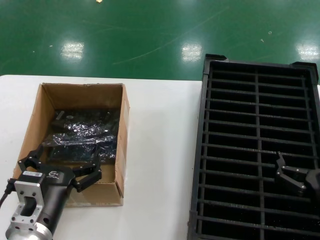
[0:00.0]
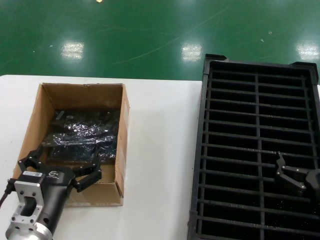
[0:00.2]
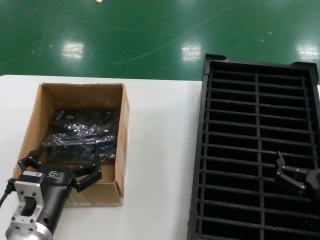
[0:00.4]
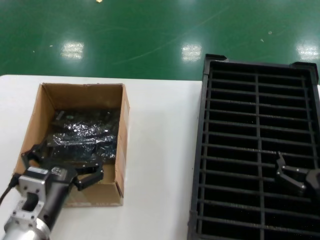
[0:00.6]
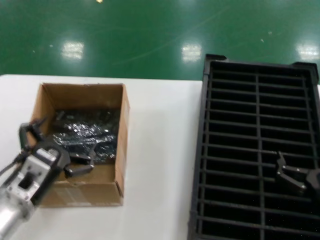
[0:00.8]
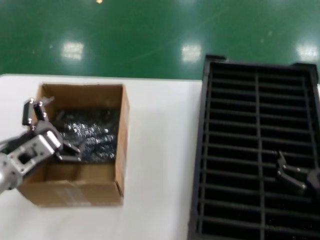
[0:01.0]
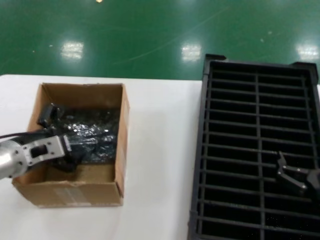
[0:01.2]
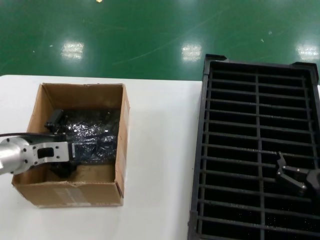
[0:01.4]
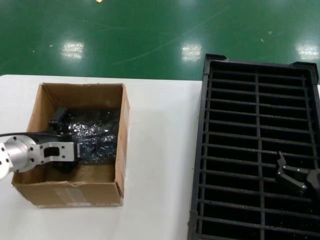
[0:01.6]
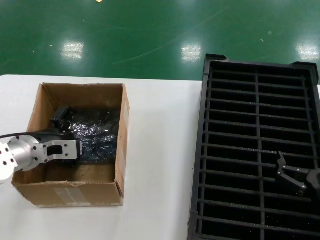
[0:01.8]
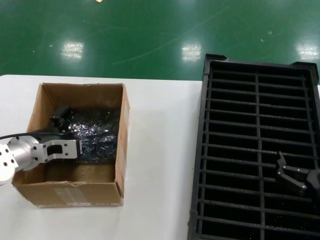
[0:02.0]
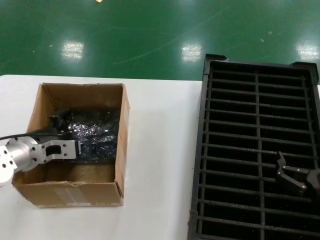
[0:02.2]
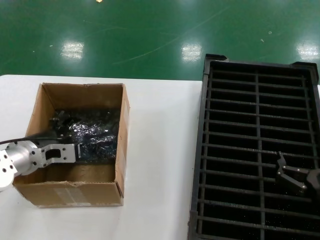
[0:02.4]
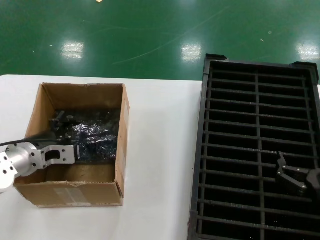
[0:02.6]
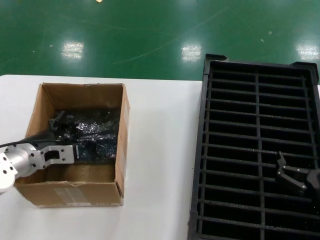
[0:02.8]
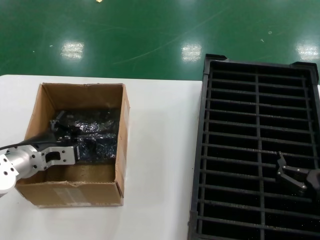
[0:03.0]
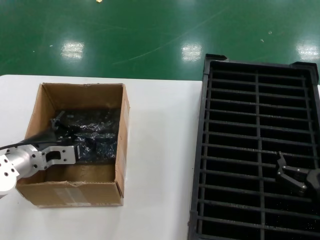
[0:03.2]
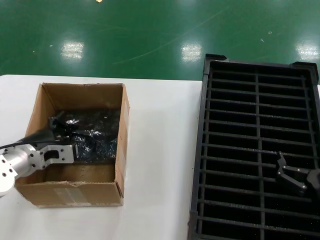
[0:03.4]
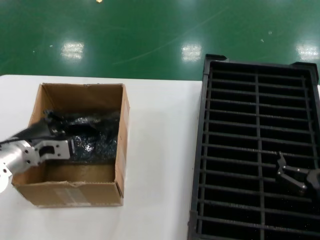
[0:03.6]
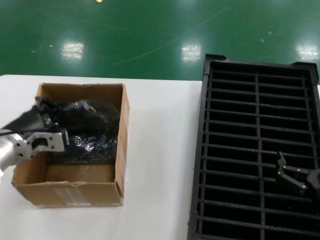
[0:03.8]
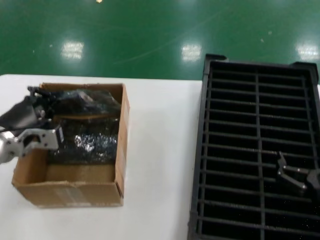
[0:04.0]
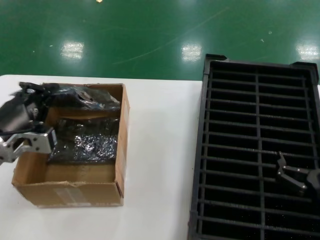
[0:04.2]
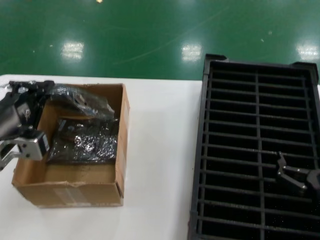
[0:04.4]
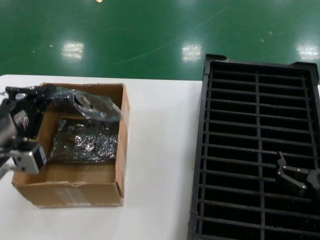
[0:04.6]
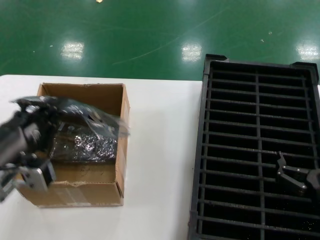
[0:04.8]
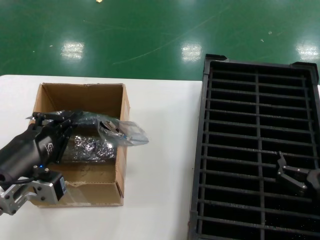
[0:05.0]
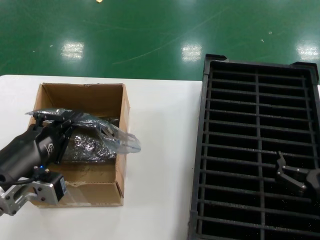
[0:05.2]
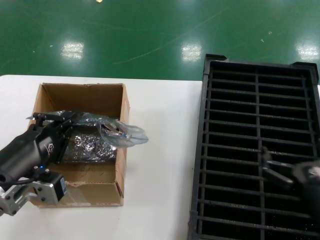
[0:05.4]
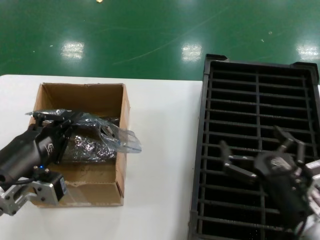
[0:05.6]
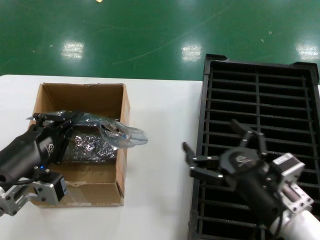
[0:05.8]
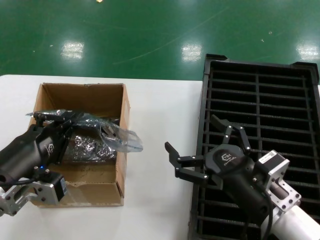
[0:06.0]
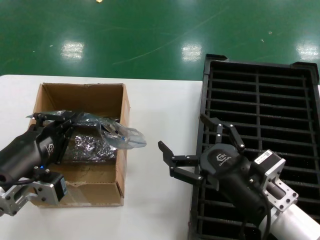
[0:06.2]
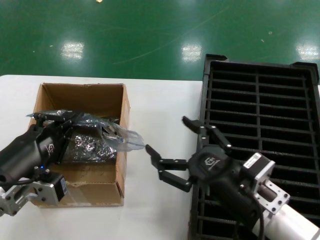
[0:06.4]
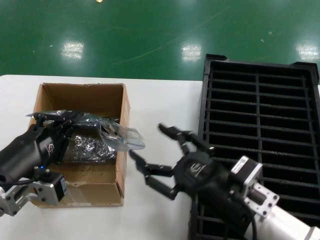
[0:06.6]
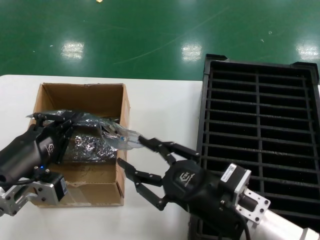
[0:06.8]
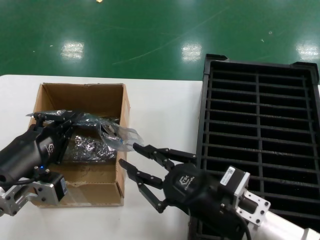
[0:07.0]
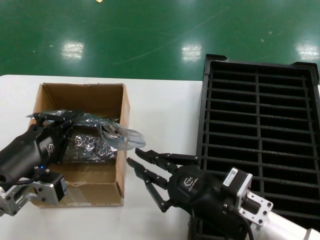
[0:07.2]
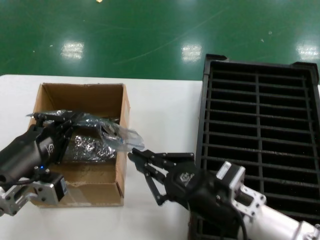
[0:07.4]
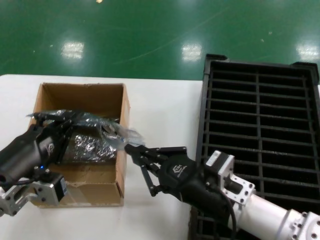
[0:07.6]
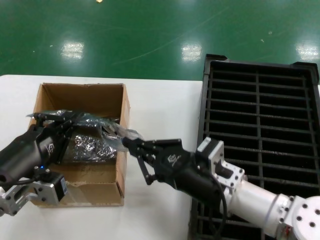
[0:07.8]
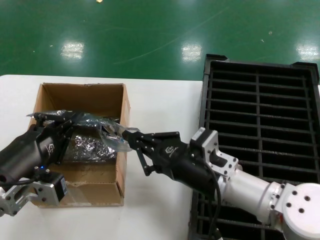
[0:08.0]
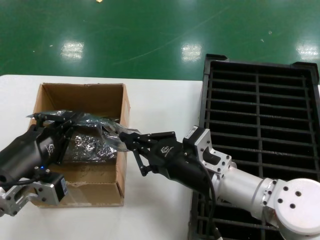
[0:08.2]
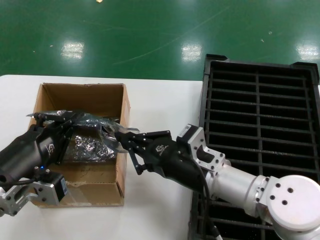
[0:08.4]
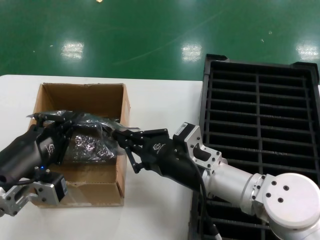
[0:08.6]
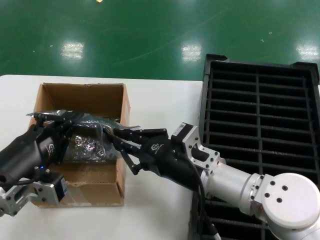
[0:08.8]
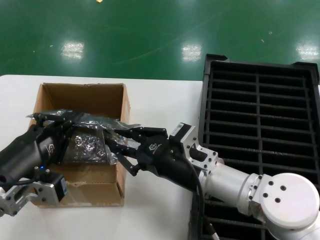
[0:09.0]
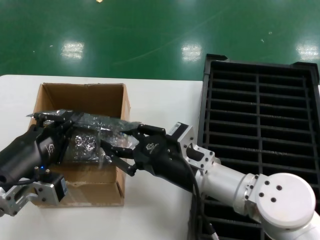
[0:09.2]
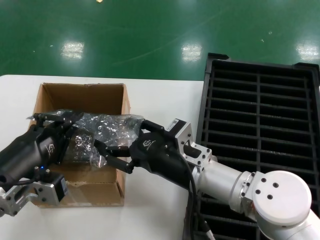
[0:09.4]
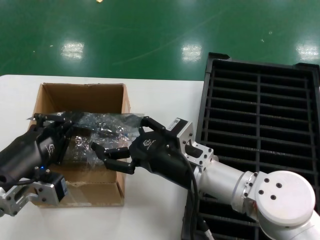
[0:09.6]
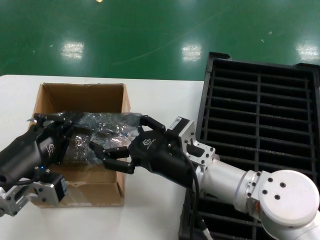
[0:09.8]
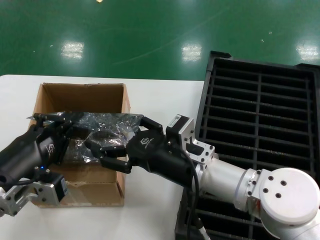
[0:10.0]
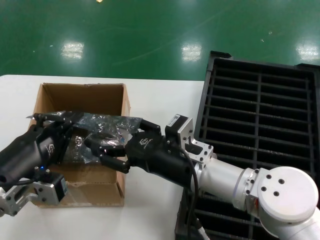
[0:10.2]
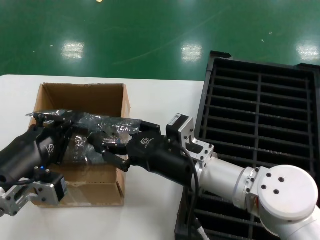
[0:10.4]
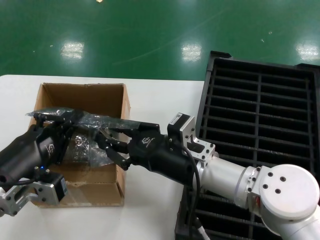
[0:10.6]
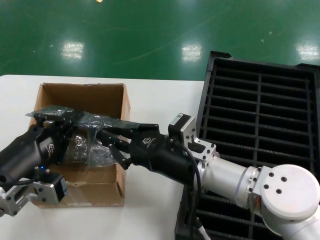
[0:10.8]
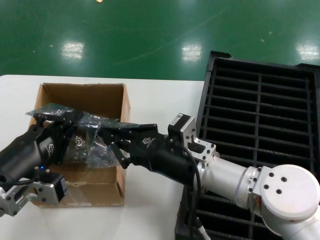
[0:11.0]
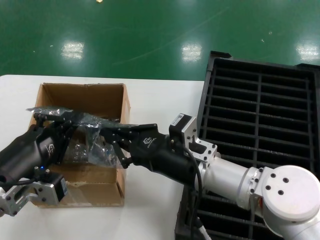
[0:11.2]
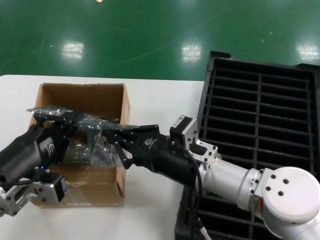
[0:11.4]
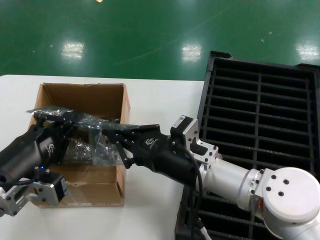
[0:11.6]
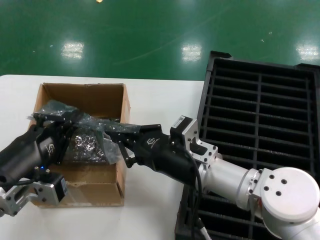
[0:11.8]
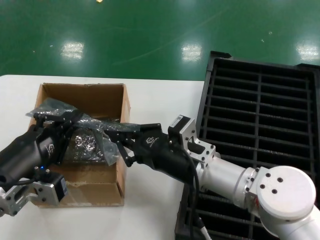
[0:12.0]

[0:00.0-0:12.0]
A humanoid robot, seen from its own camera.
Task of the whole recording: take out graphics card from box remove packaging put into black container.
Step, 0:00.0 to 0:03.0: Grasp the bag.
Step, 0:03.2 to 0:05.0: Lift the bag.
0:00.0 to 0:01.6: The left hand moves forward, to the left and upward, about 20 cm.
0:01.6 to 0:03.0: The hands move only a little.
0:03.0 to 0:04.4: The left hand shifts about 15 cm backward and upward.
0:04.4 to 0:06.0: The left hand goes some 5 cm backward; the right hand heads to the left, covering approximately 10 cm.
0:07.6 to 0:09.0: The right hand shifts approximately 5 cm forward.
0:09.0 to 0:10.4: The hands make only small movements.
0:10.4 to 0:12.0: Both hands stay put.

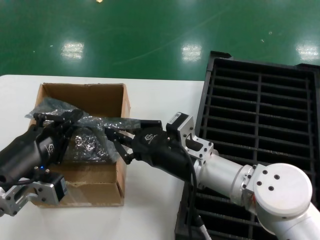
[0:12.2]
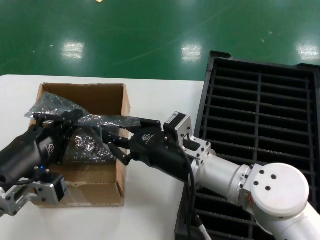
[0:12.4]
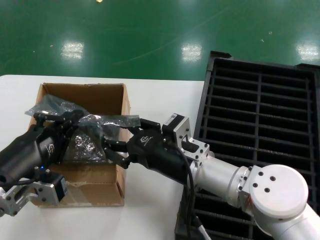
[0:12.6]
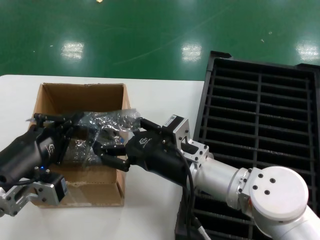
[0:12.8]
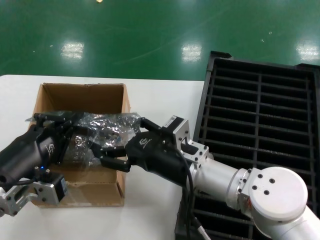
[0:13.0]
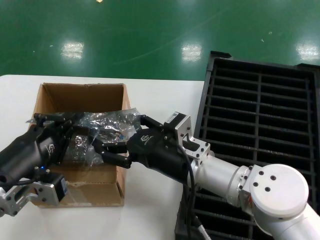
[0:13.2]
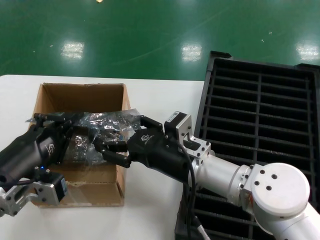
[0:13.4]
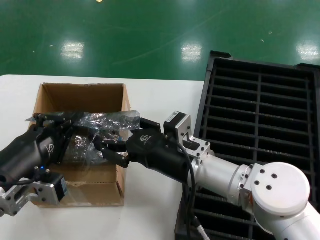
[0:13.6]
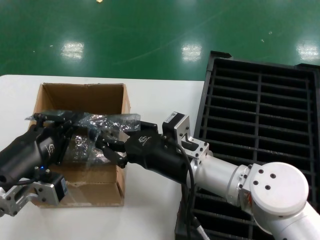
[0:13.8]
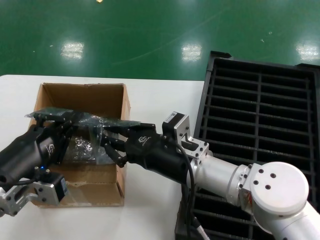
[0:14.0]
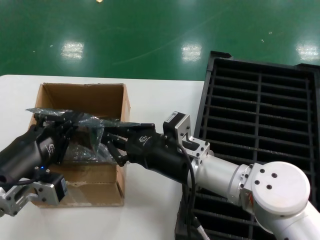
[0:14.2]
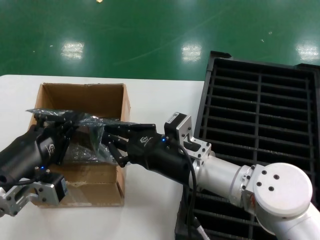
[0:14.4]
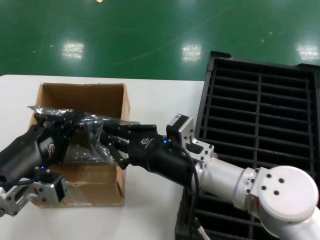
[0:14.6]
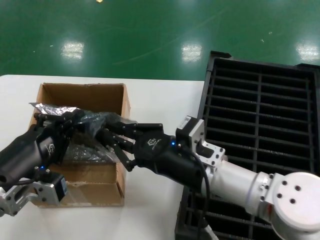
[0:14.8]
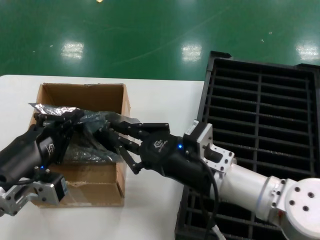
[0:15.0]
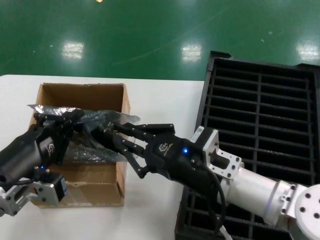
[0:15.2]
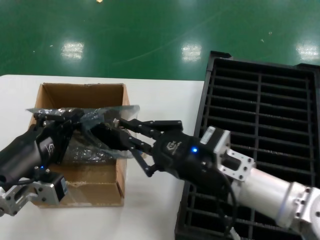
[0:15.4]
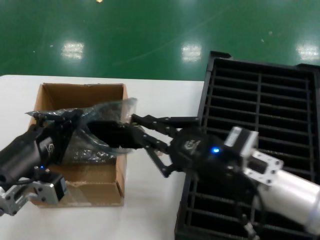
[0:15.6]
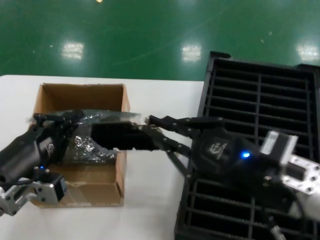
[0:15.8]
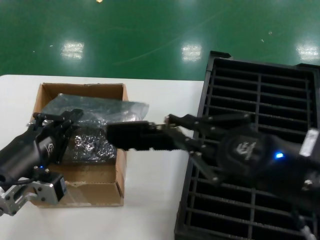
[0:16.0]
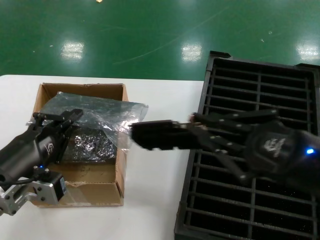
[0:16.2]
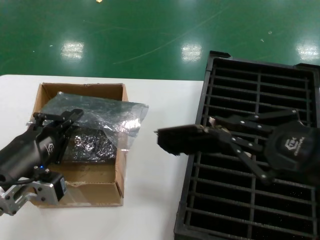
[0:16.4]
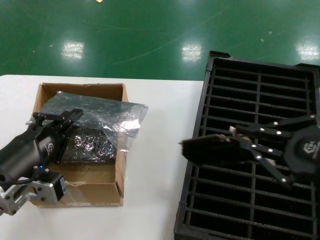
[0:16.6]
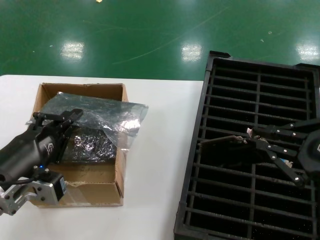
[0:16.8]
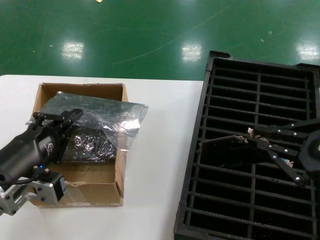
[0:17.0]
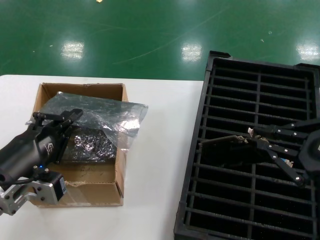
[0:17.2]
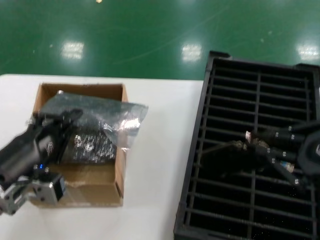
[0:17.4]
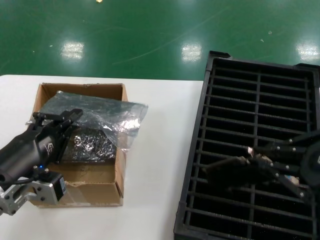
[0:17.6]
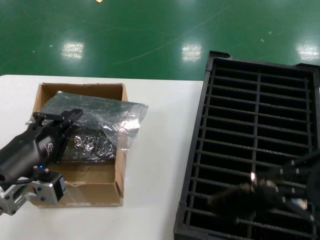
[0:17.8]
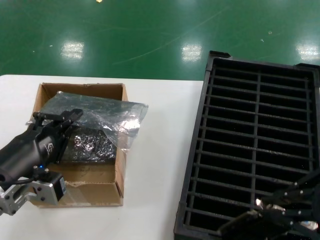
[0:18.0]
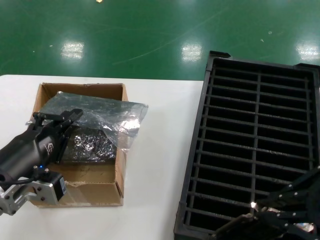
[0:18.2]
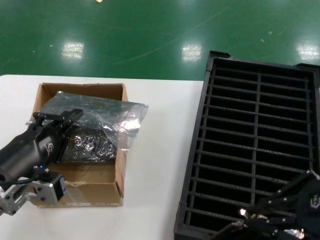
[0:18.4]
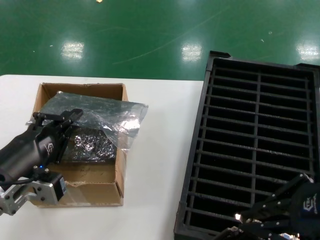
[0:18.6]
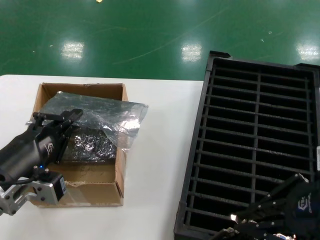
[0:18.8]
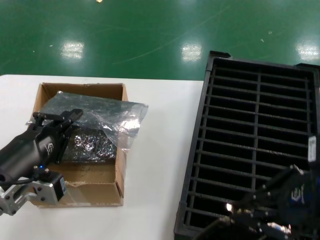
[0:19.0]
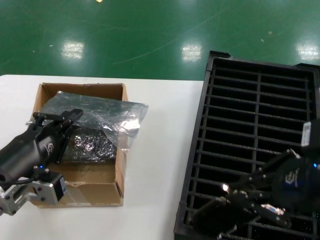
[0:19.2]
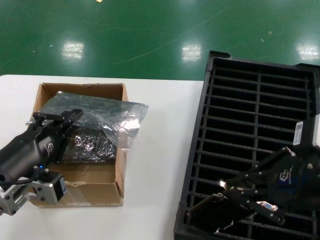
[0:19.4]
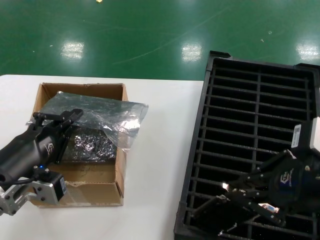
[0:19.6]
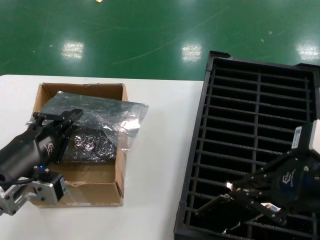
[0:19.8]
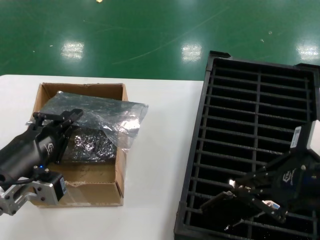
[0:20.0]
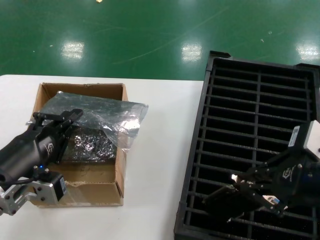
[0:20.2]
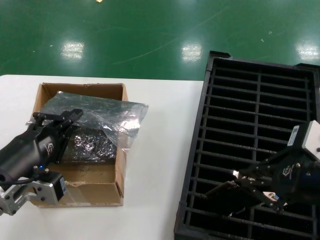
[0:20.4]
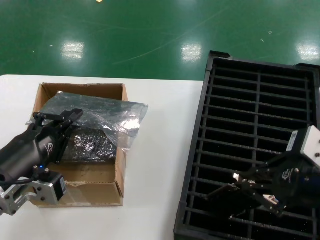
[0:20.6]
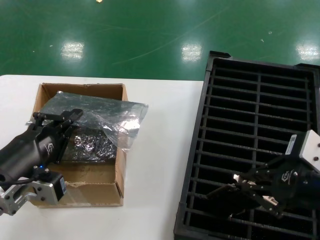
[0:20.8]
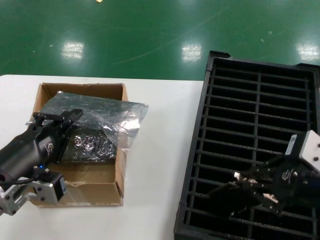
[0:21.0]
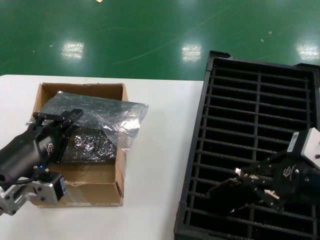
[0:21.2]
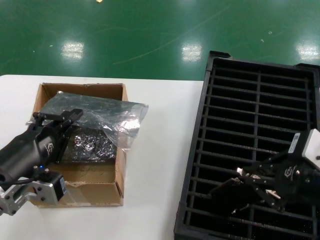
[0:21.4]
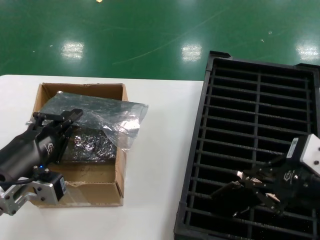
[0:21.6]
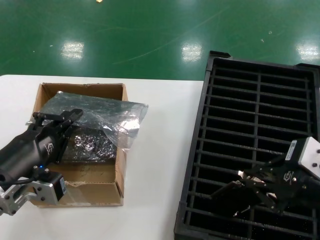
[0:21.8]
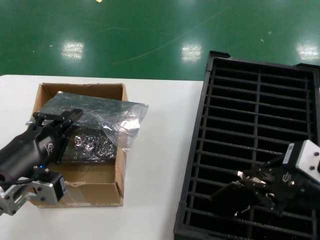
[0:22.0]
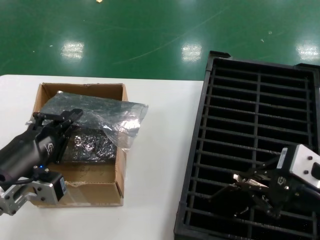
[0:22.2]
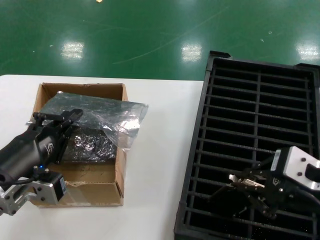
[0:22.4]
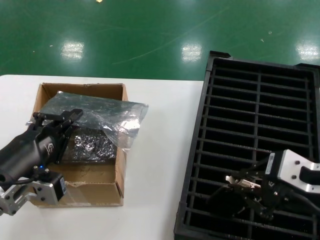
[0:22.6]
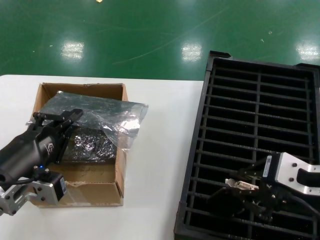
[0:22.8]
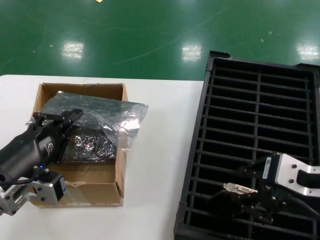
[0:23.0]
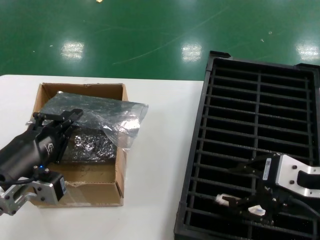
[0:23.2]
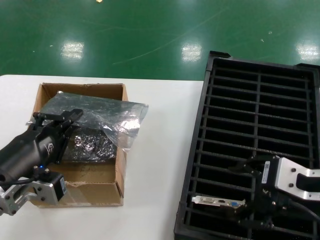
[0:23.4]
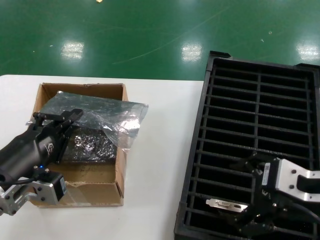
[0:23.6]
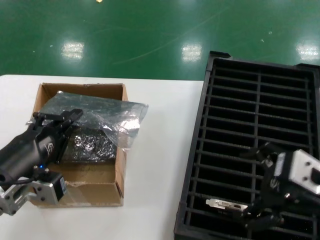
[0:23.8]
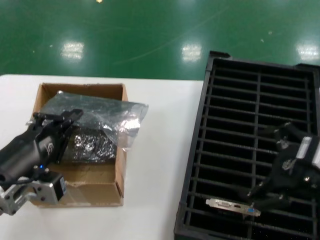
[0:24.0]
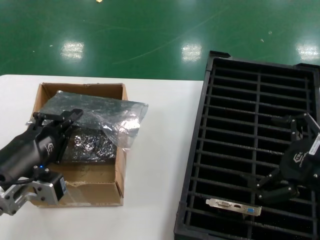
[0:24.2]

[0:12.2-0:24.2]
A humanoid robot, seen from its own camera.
Task of the whole recording: take out graphics card from box remove packaging put into black container.
Step, 0:12.2 to 0:16.2: Take out the hard disk of the bag.
Step, 0:16.4 to 0:23.8: Place the hard disk in the hard disk enclosure.
0:12.2 to 0:13.8: The two hands keep their place.
0:13.8 to 0:15.2: The right hand moves approximately 5 cm.
0:15.2 to 0:16.6: The right hand heads to the right, upward and backward, covering about 25 cm.
0:18.2 to 0:19.8: The right hand shifts some 5 cm to the left.
0:19.8 to 0:21.2: The hands stay close to where they were, moving slightly.
0:21.2 to 0:24.2: The hands stay close to where they were, moving slightly.
